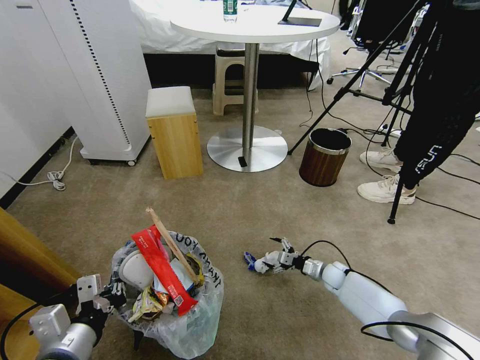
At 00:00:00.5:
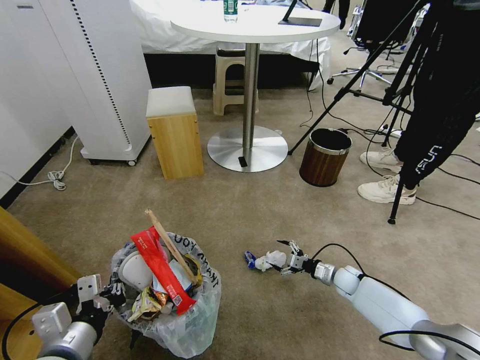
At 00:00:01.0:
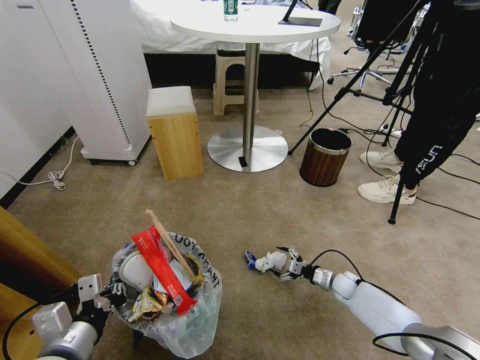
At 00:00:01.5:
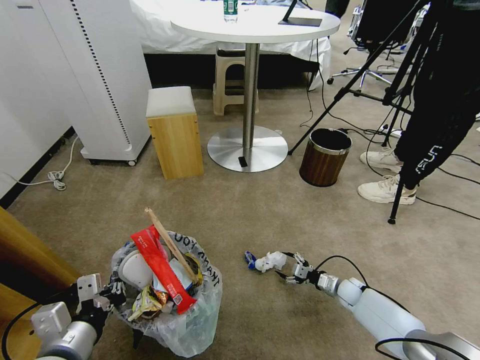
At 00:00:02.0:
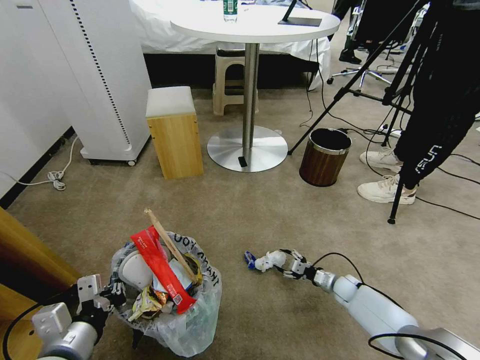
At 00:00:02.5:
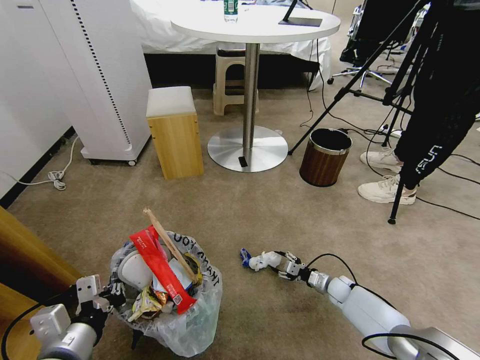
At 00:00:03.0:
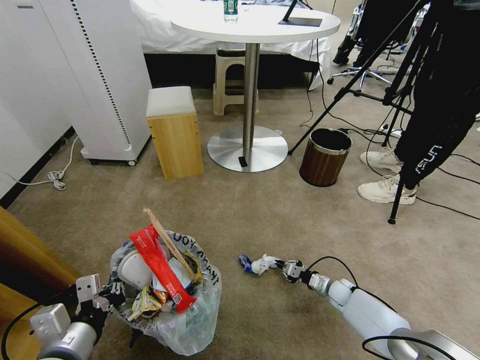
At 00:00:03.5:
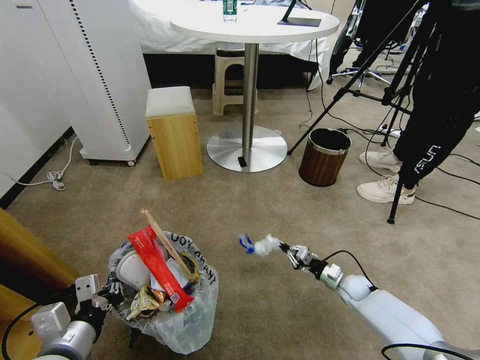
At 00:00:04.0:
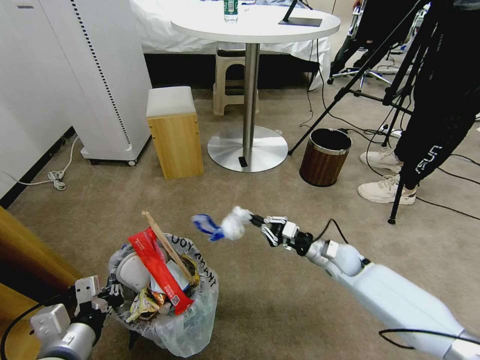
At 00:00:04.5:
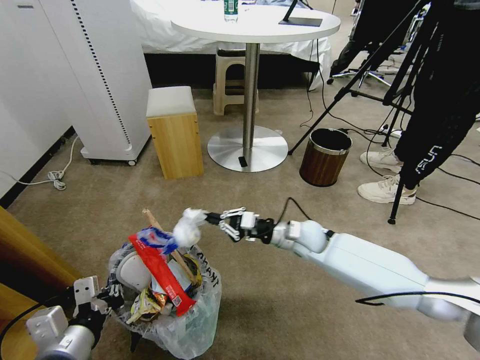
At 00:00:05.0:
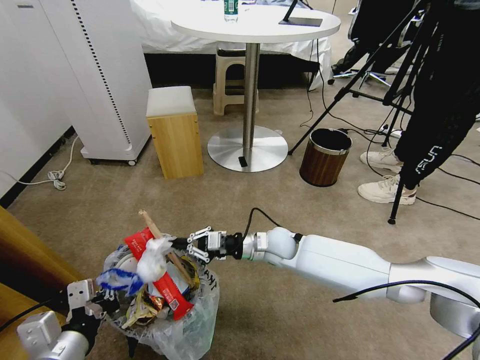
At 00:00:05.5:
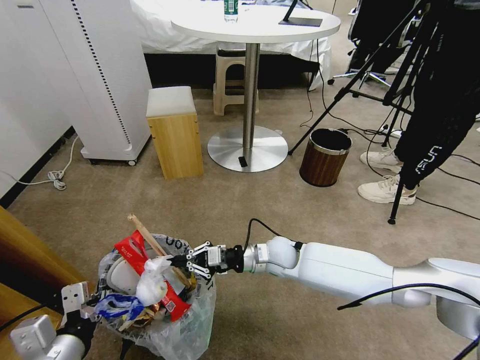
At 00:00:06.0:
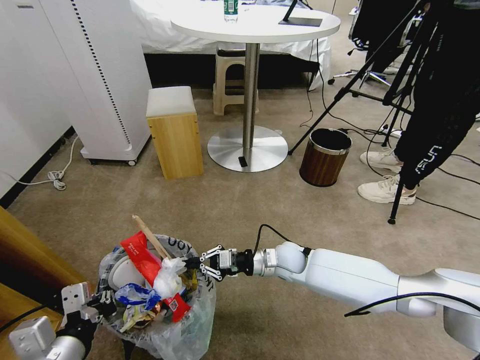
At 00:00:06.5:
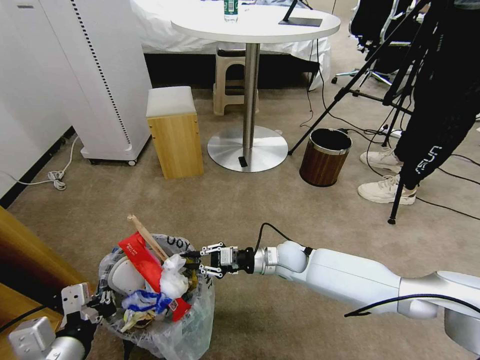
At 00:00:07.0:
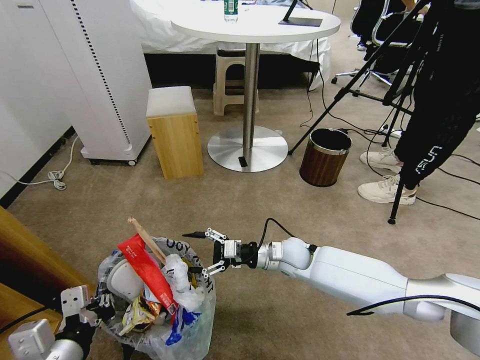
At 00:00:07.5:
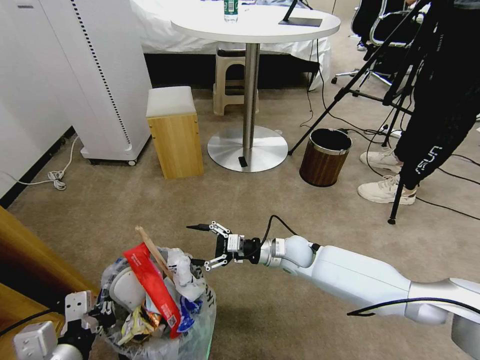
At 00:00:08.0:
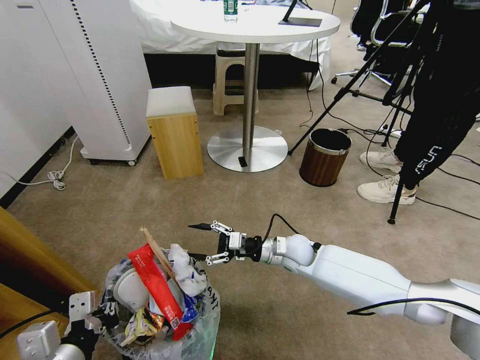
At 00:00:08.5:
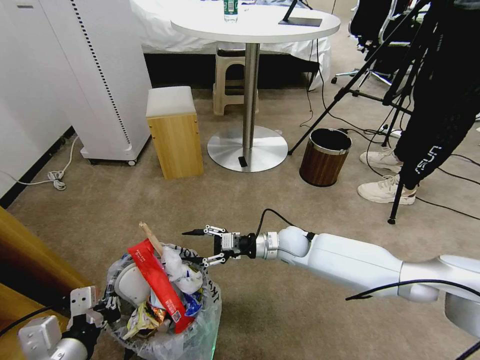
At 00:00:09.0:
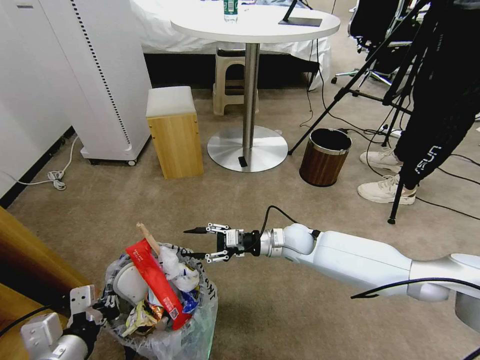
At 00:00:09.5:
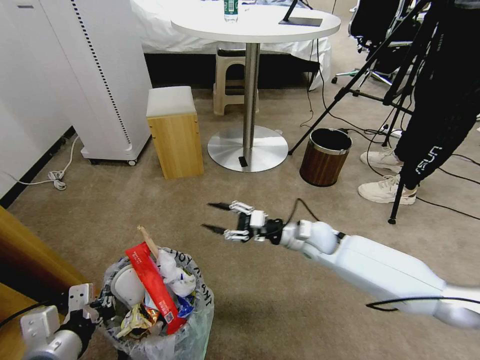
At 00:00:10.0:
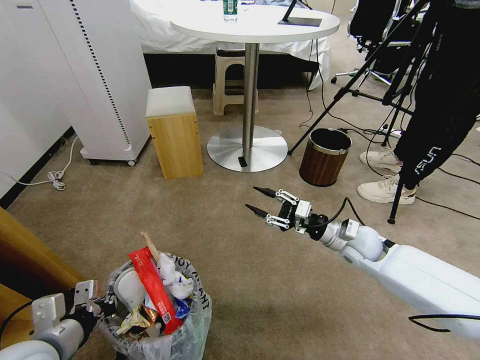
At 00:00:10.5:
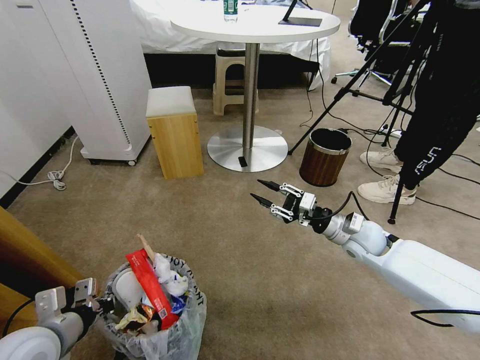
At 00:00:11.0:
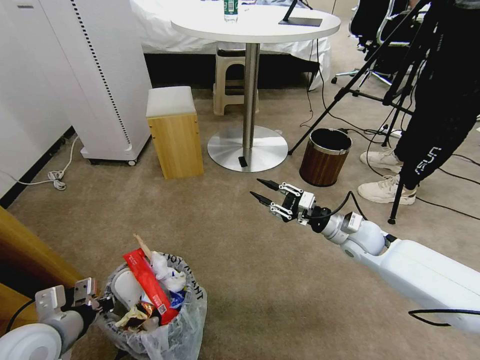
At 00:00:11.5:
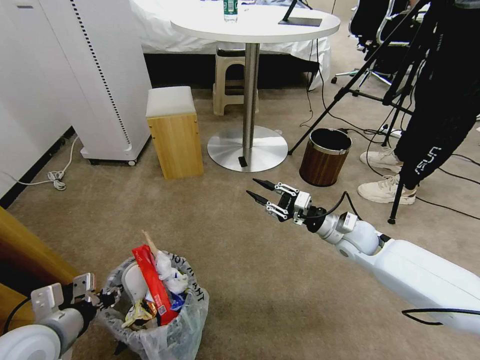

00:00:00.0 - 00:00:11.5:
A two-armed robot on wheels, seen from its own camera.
Task of the whole recording: Pick up the trash bin and place the garbage on the floor into it.
00:00:00.0 - 00:00:02.0: The right gripper ends up about 5 cm from where it was.
00:00:02.0 - 00:00:04.0: The right gripper shifts roughly 20 cm upward and to the left, and closes.
00:00:04.0 - 00:00:06.0: The right gripper heads to the left, covering some 15 cm.
00:00:06.0 - 00:00:07.5: The right gripper opens up.
00:00:07.5 - 00:00:09.5: The right gripper moves roughly 5 cm.
00:00:09.5 - 00:00:11.5: The right gripper goes approximately 10 cm to the right. The left gripper moves forward, about 5 cm.

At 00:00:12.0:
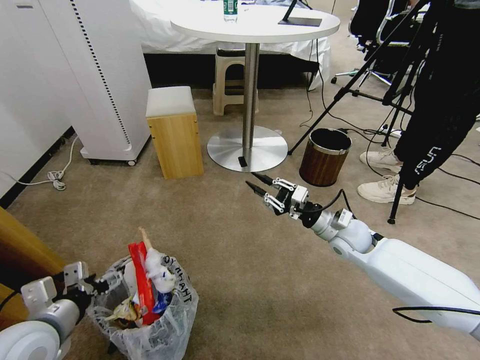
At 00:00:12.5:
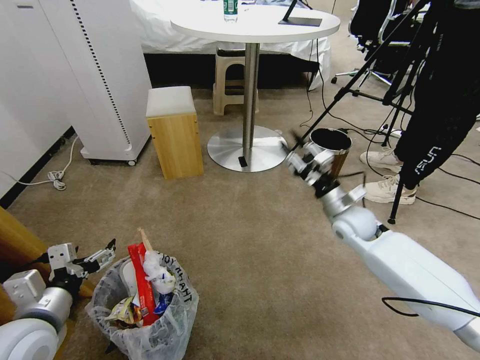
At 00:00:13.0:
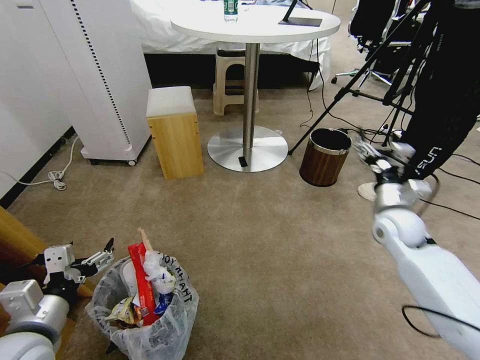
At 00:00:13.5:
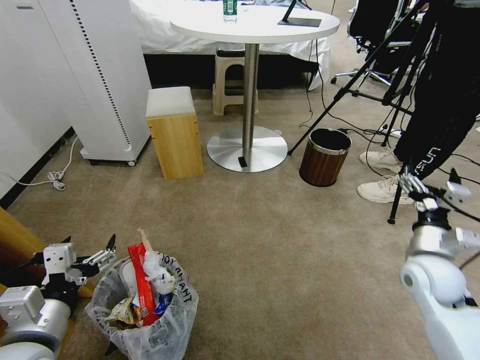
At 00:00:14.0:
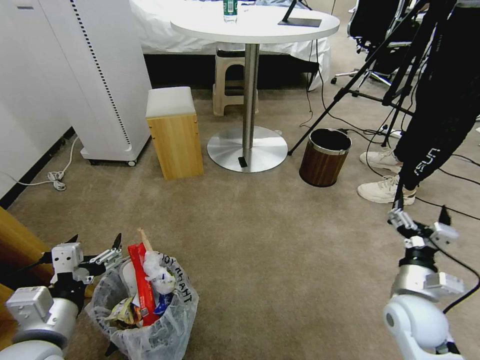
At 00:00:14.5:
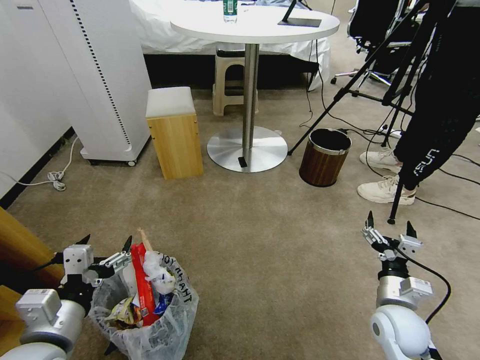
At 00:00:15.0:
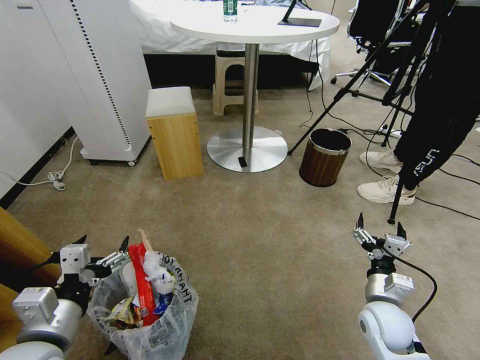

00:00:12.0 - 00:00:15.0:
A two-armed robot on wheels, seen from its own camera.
Task of the whole recording: Pick up the trash bin and place the garbage on the floor into it.
00:00:12.0 - 00:00:13.5: The left gripper moves approximately 5 cm. The right gripper goes approximately 15 cm backward and to the right, and opens up.
00:00:13.5 - 00:00:15.0: The right gripper goes approximately 15 cm downward, to the left and backward.
